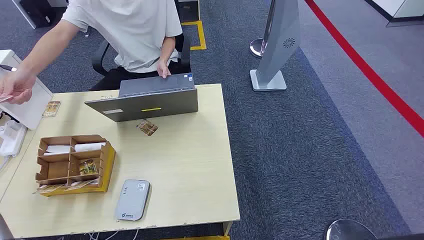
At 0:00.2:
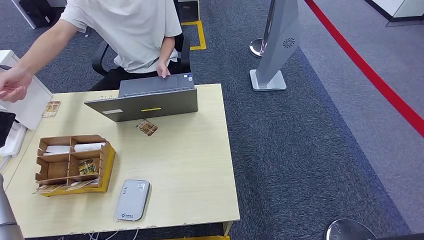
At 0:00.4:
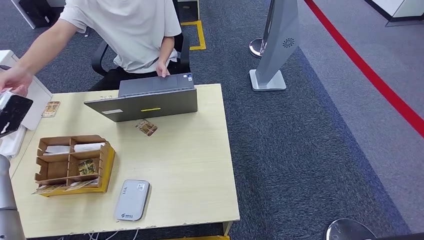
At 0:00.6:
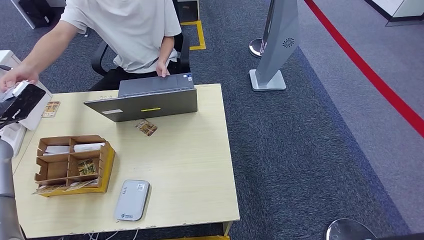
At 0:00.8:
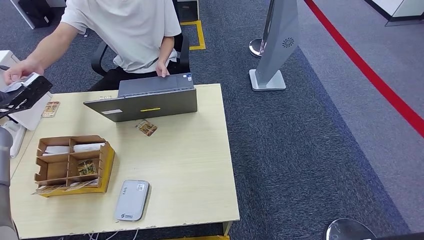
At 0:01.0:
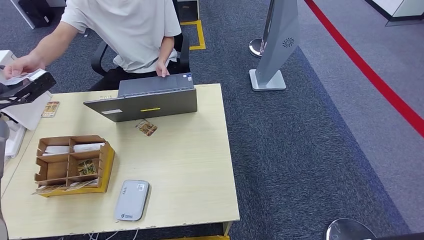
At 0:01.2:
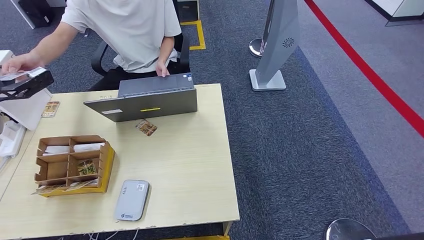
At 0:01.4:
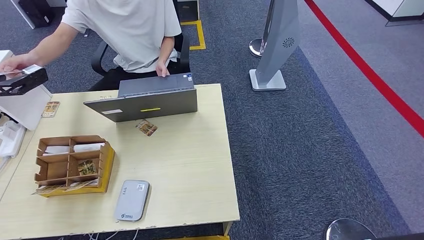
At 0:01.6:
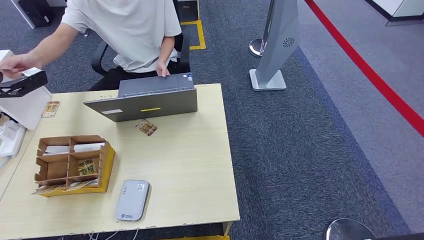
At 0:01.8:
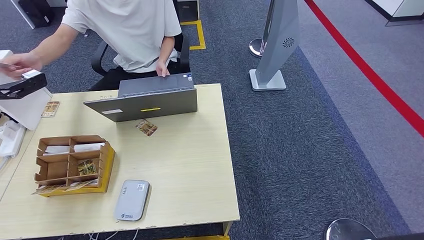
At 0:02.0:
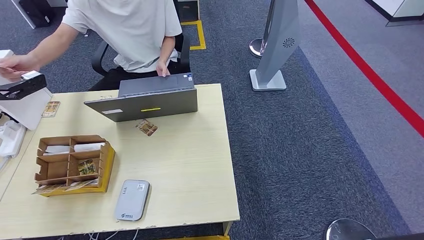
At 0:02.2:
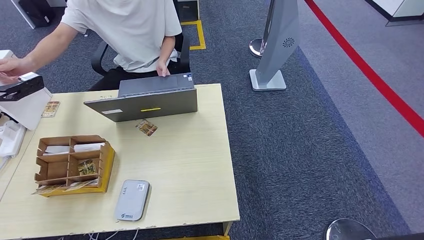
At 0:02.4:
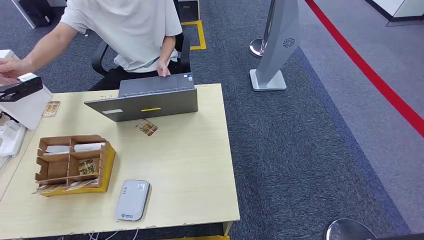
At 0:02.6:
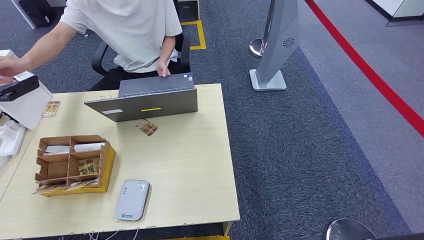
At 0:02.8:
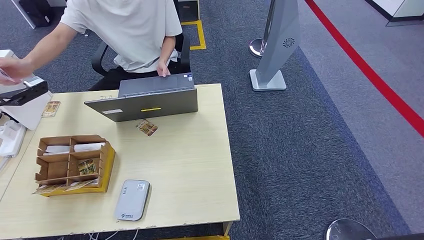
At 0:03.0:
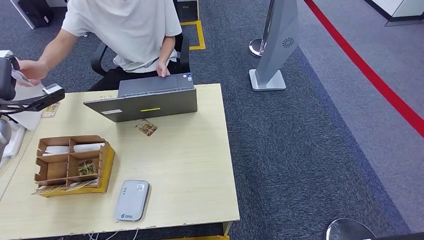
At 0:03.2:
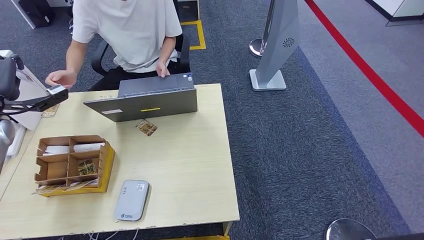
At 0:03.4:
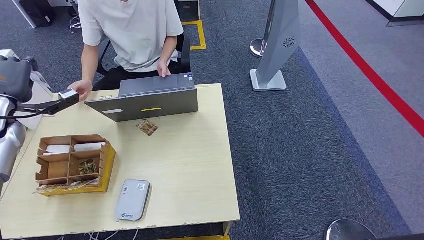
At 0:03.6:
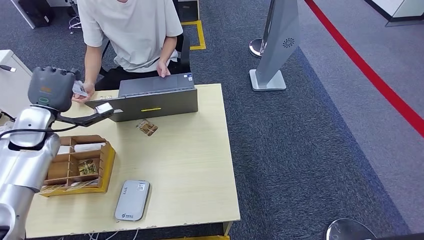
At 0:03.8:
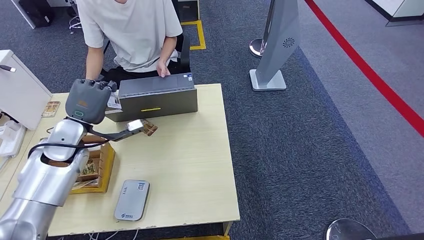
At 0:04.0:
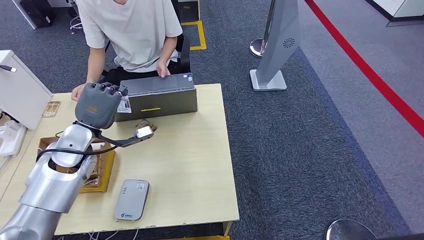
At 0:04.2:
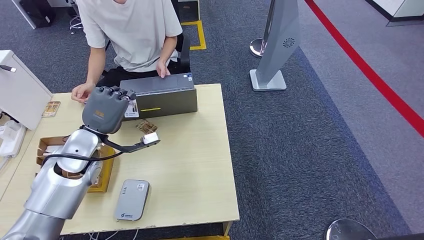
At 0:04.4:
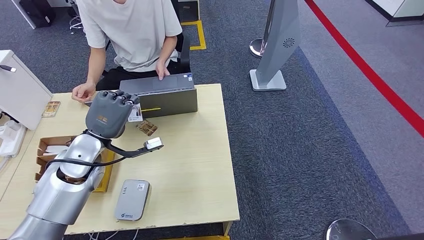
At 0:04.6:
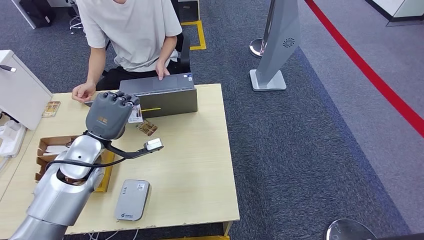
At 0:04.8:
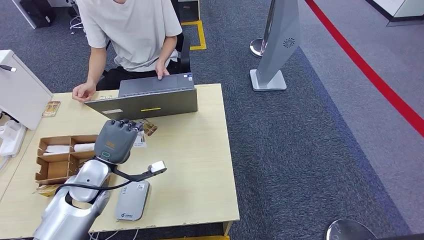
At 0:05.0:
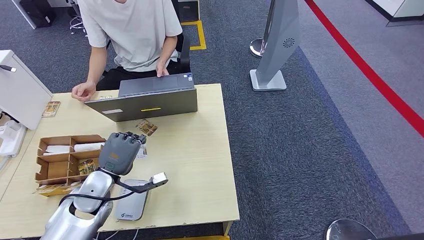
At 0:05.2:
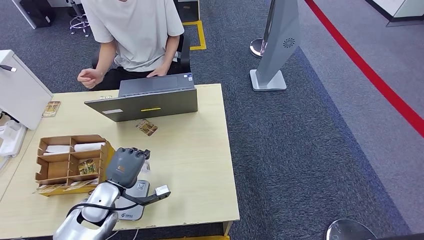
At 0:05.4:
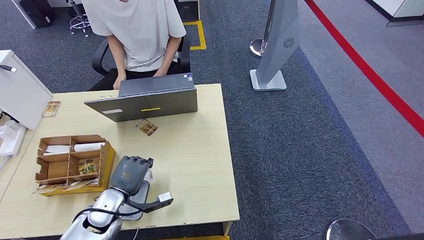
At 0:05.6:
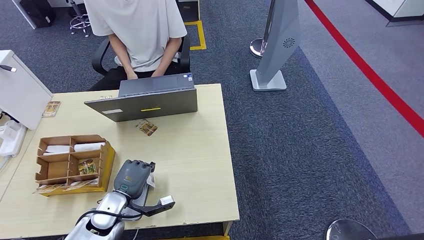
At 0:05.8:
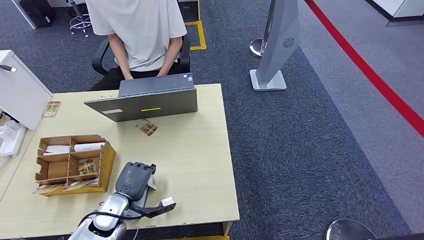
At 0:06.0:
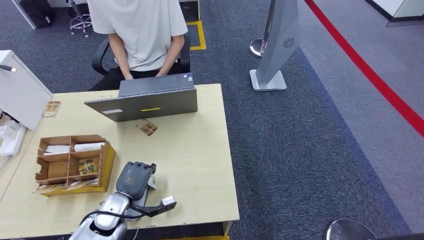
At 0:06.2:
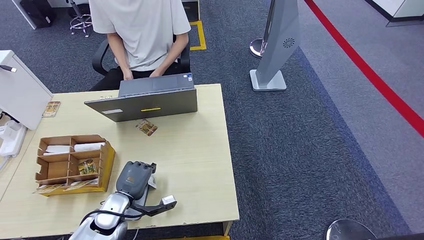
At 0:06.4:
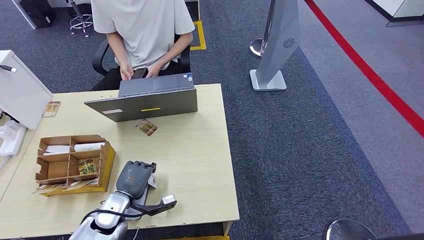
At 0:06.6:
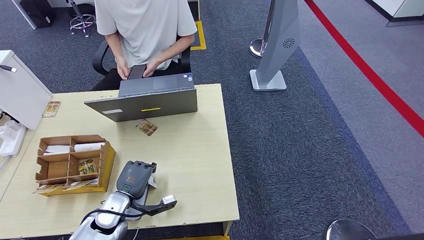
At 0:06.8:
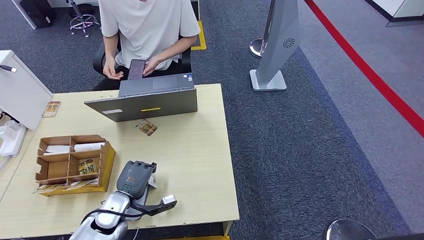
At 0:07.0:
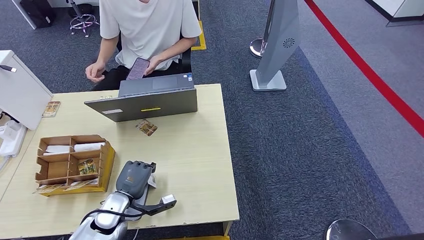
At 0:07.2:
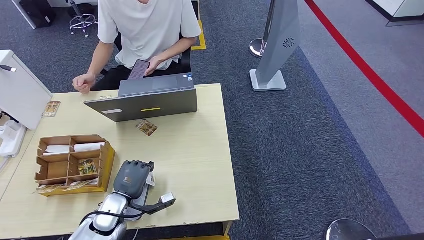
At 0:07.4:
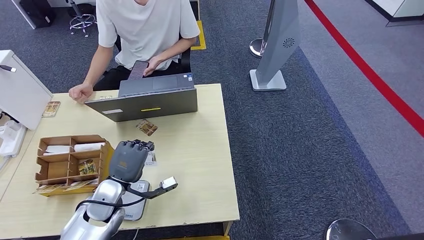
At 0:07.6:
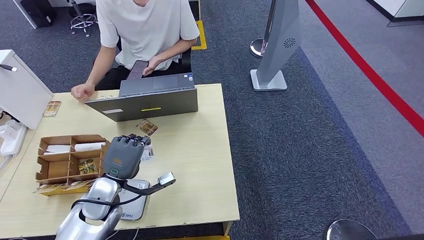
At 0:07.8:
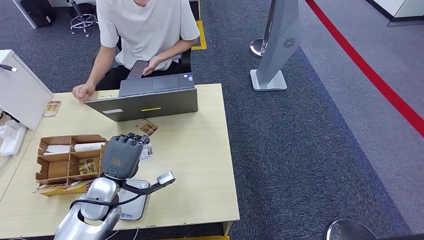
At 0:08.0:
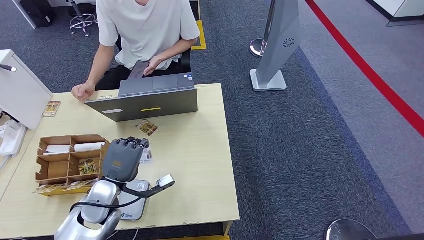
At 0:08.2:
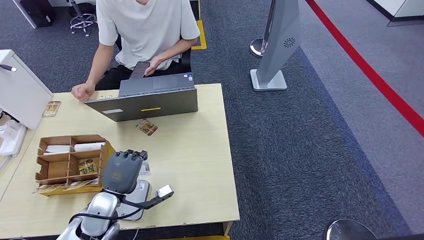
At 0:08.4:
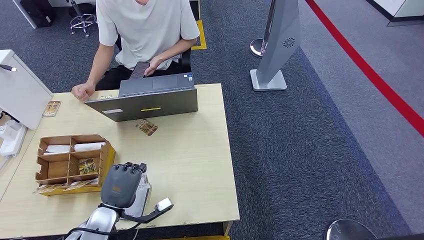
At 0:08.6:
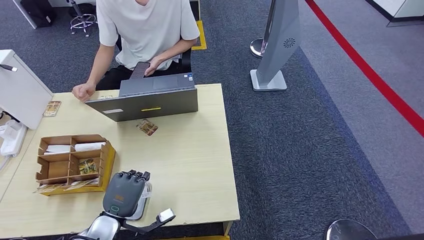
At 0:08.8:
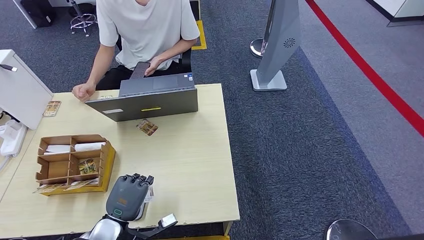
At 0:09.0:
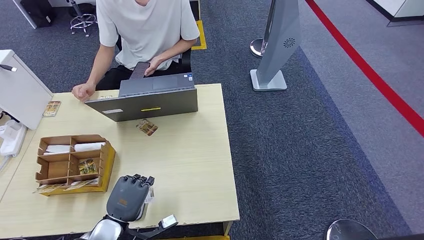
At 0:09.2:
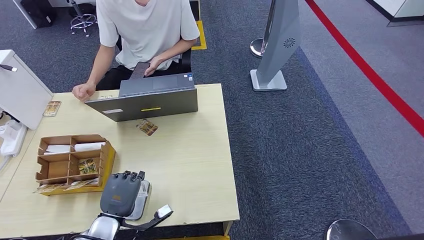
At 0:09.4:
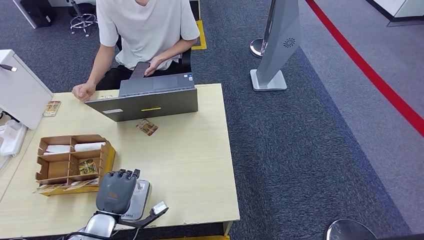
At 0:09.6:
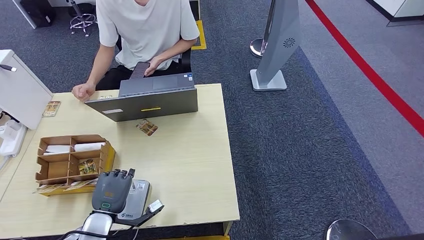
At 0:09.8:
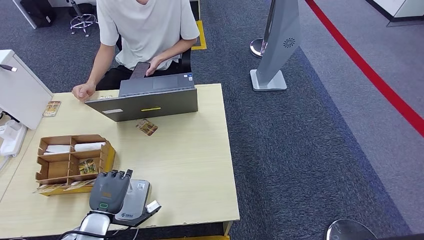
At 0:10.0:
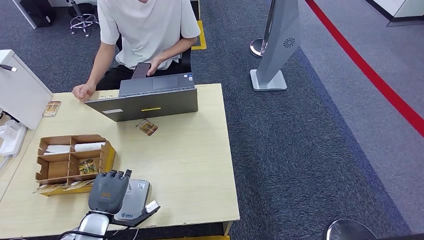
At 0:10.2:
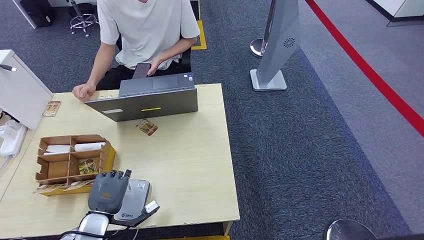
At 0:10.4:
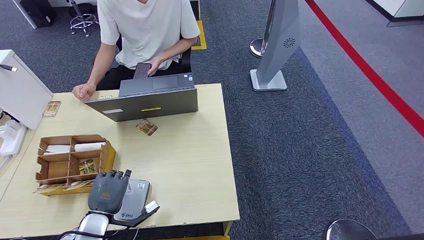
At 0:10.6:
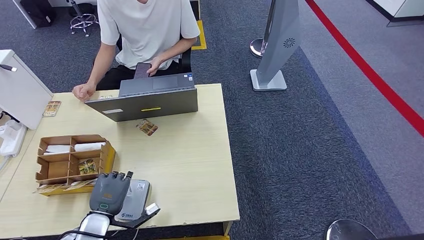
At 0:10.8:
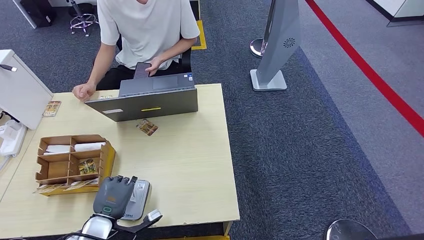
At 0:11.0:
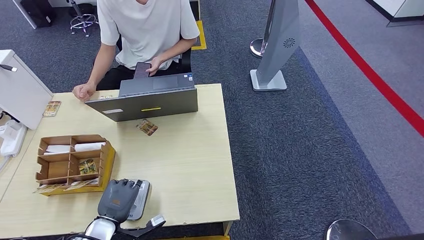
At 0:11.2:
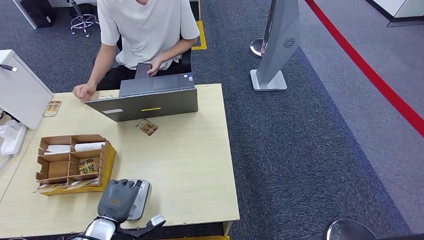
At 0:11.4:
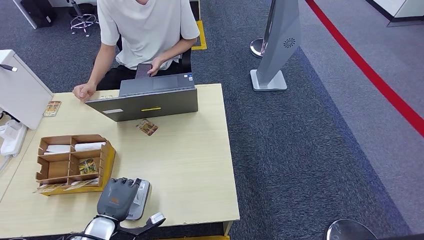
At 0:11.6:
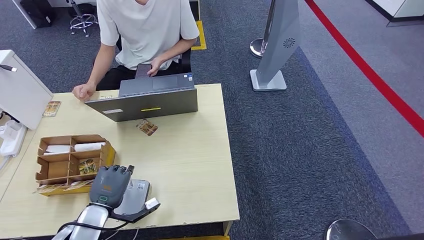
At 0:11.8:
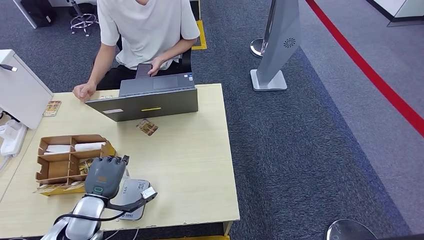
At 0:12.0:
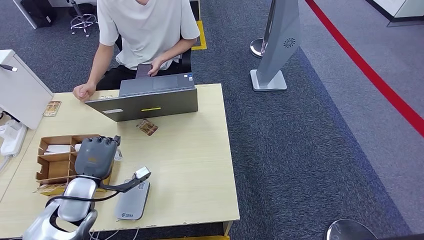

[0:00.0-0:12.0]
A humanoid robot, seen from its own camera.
Step, 0:00.0 to 0:04.4: Take the ID card from the person's hand.
Step, 0:04.6 to 0:11.8: Place the ID card on the card reader.
0:01.6 to 0:03.0: There are only small adjustments of the hands.
0:03.0 to 0:04.4: The left hand moves to the right, about 25 cm.
0:04.4 to 0:06.0: The left hand is displaced downward and backward by roughly 20 cm.
0:06.0 to 0:07.6: The left hand is displaced upward by approximately 10 cm.
0:07.6 to 0:09.0: The left hand is displaced backward by approximately 10 cm.
0:09.0 to 0:10.4: The hands stay close to where they were, moving slightly.
0:10.4 to 0:12.0: The left hand heads forward and upward, covering roughly 10 cm.

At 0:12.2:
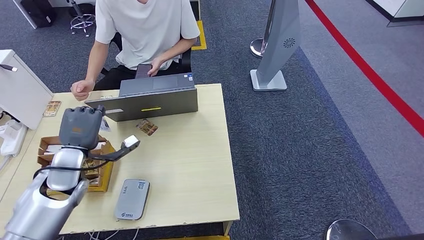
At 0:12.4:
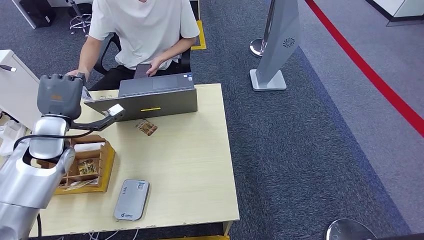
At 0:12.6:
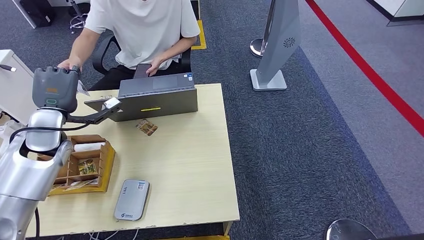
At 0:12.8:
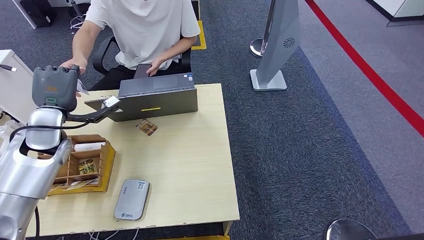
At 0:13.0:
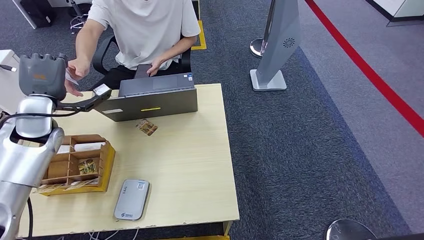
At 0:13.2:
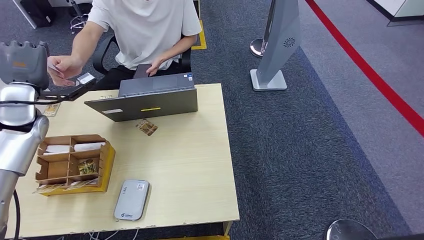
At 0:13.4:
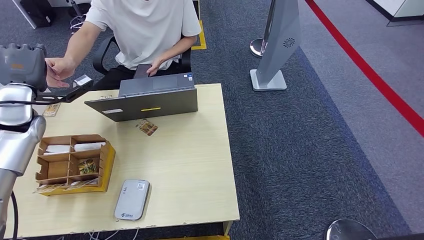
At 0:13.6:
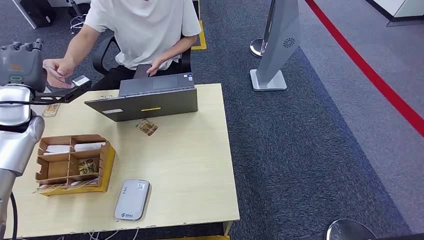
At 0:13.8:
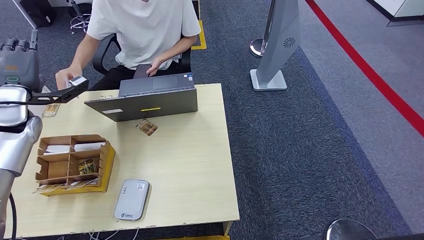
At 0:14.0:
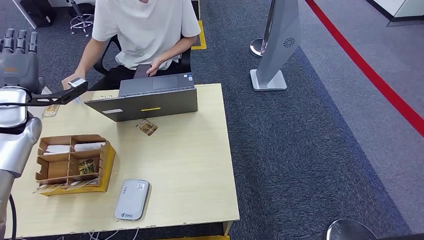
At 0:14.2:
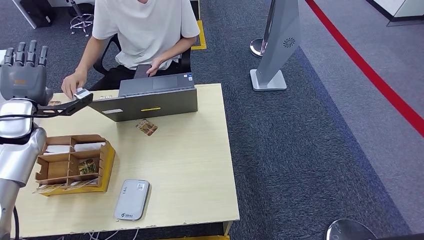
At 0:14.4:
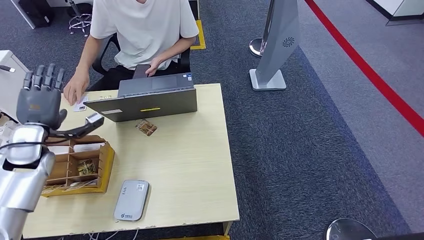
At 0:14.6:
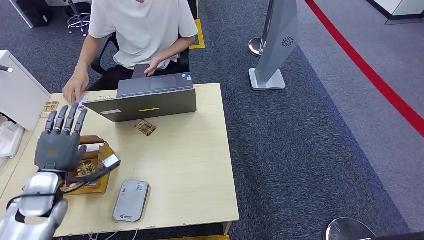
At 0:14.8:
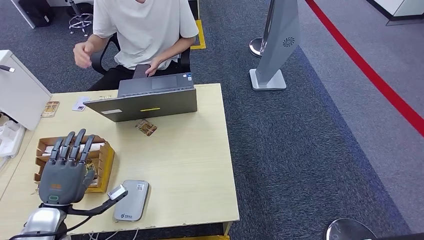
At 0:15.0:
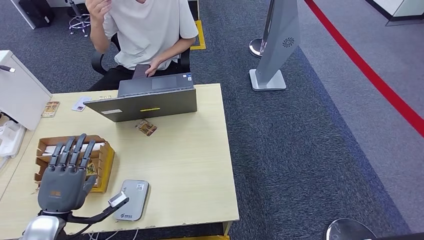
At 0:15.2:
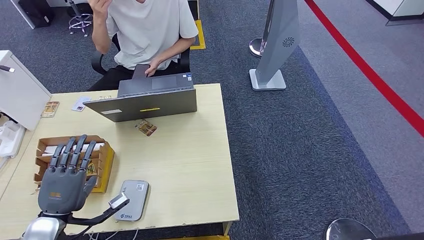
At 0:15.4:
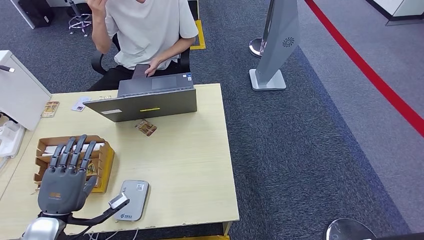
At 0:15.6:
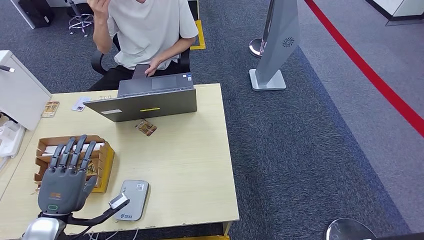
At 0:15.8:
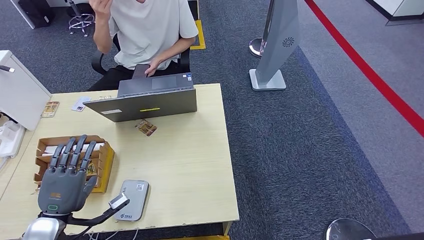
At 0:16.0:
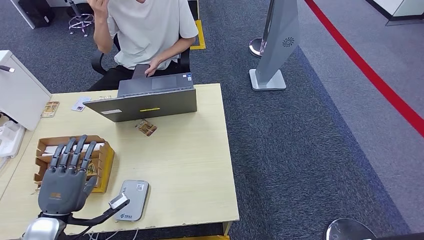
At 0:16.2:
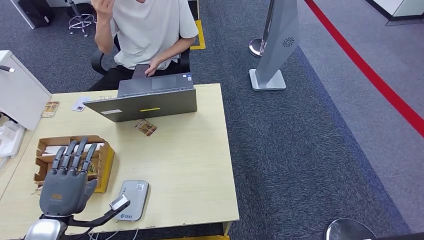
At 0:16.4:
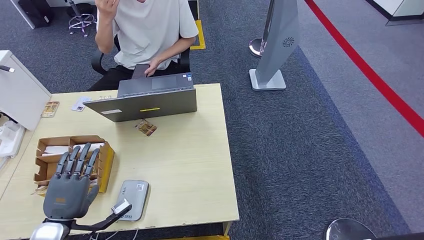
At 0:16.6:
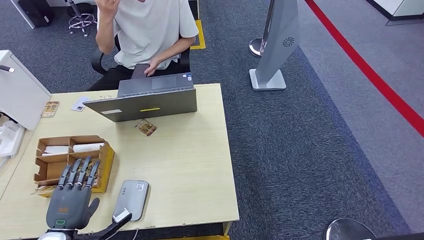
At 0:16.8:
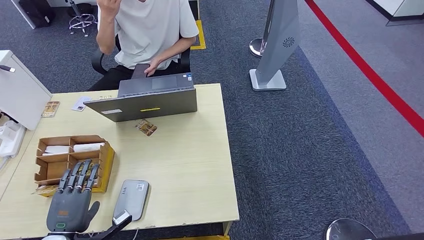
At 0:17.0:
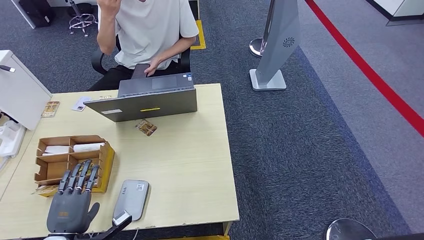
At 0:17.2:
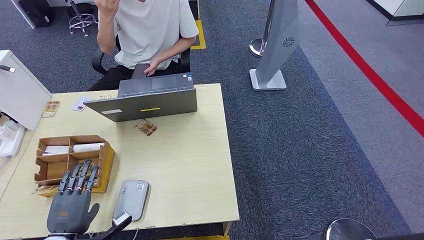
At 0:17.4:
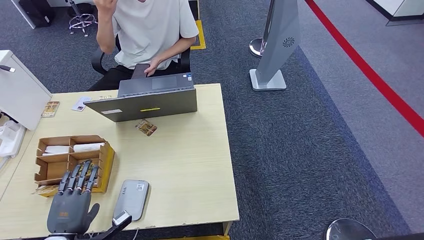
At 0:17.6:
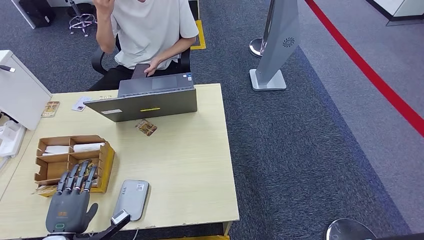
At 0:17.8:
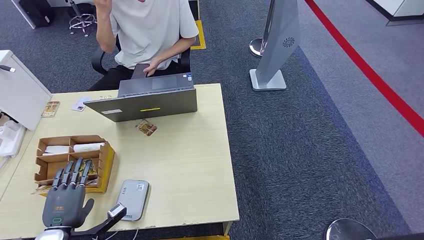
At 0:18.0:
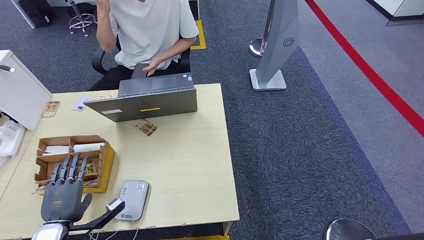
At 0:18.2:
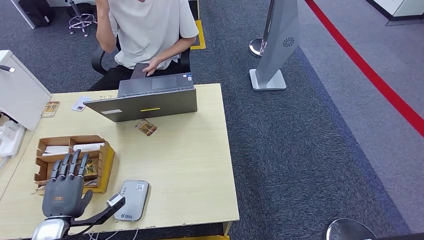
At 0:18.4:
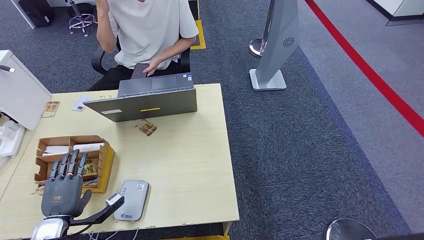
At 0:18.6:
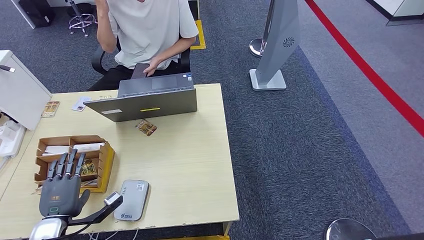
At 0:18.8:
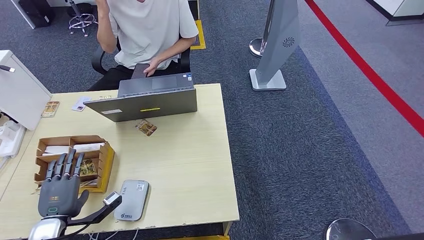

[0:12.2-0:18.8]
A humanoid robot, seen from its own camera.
Step, 0:12.2 to 0:14.8: Hand the ID card to the person.
0:12.2 to 0:13.8: The left hand is displaced upward, forward and to the left by approximately 20 cm.
0:13.8 to 0:15.4: The left hand heads backward and downward, covering roughly 30 cm.
0:15.4 to 0:17.2: The left hand travels downward by about 5 cm.
0:17.2 to 0:18.8: The hands move only a little.
